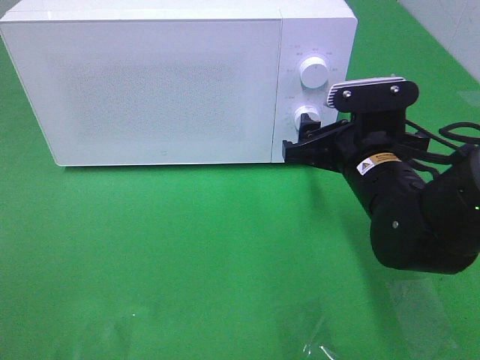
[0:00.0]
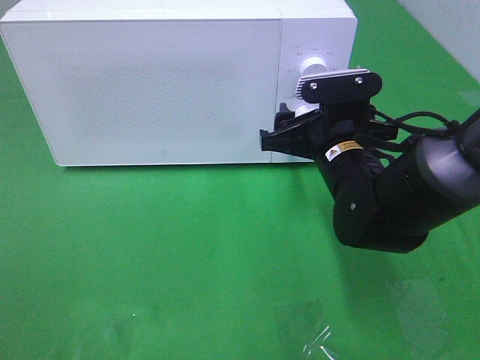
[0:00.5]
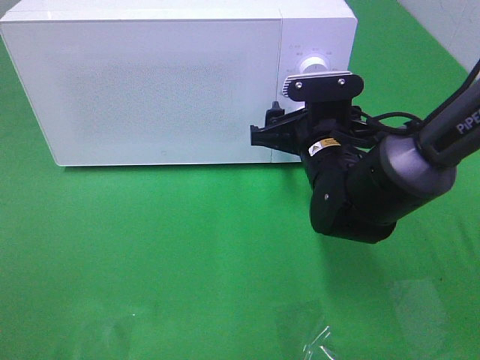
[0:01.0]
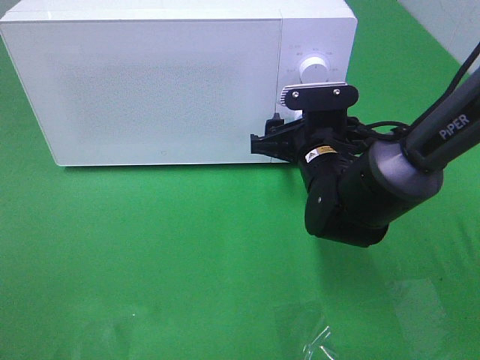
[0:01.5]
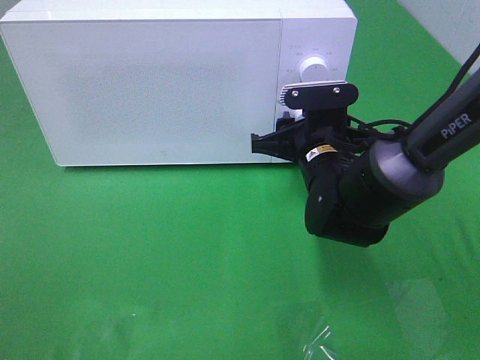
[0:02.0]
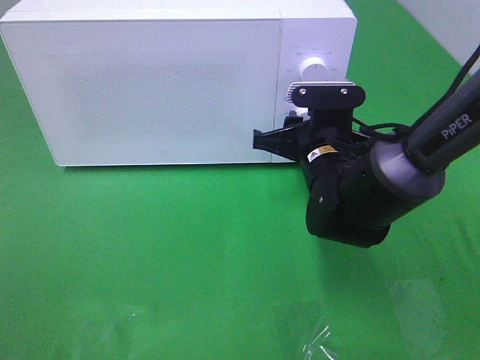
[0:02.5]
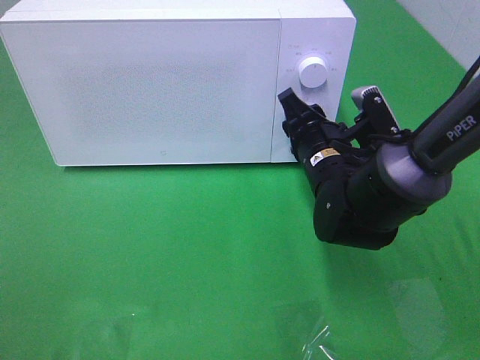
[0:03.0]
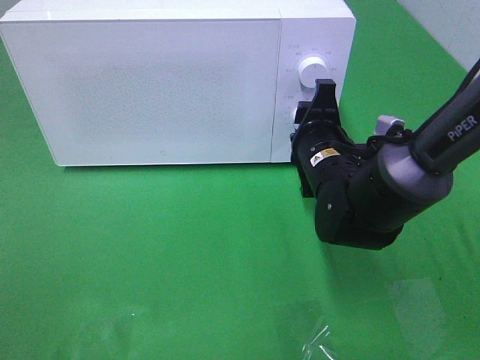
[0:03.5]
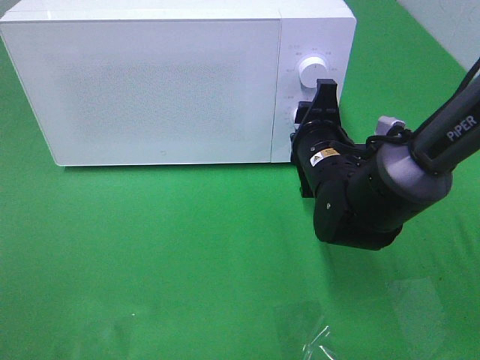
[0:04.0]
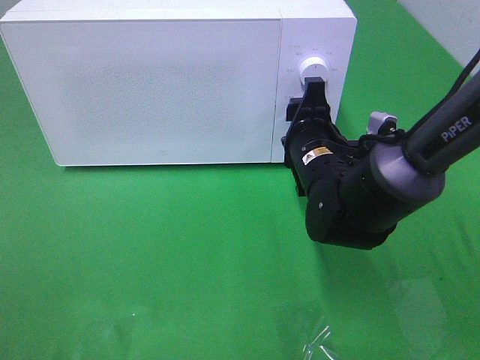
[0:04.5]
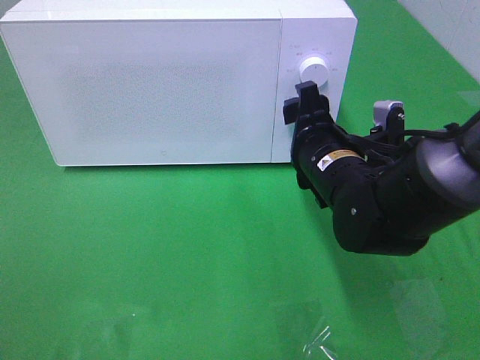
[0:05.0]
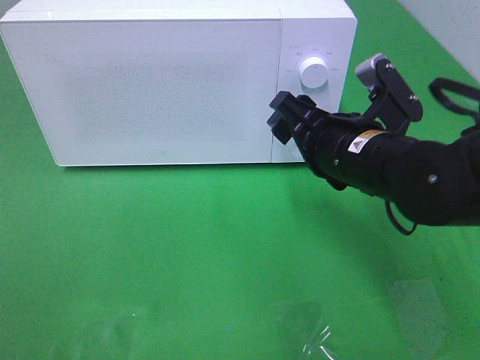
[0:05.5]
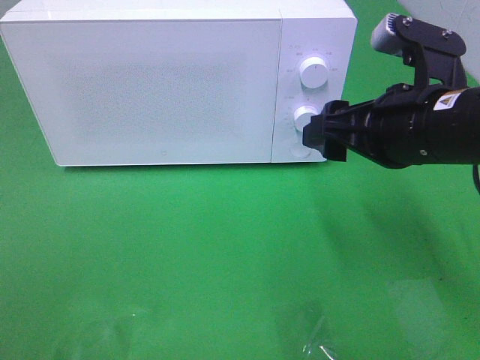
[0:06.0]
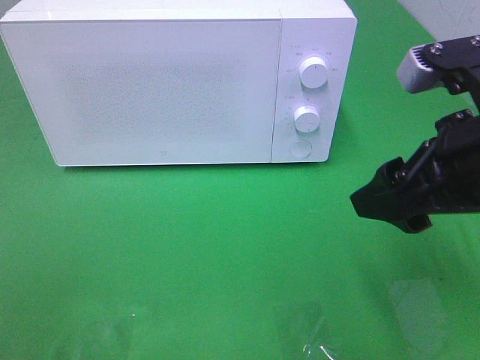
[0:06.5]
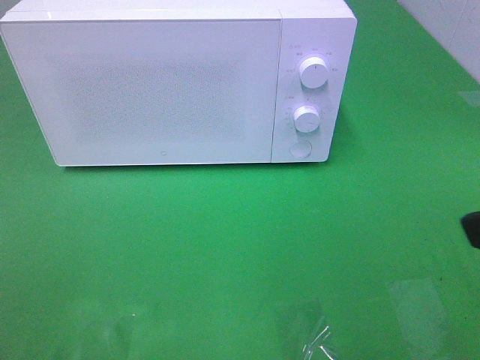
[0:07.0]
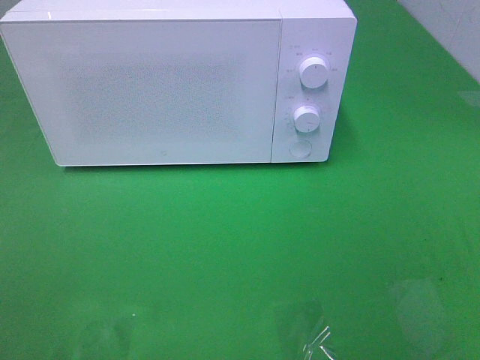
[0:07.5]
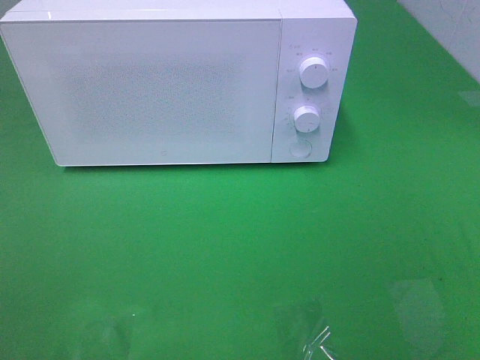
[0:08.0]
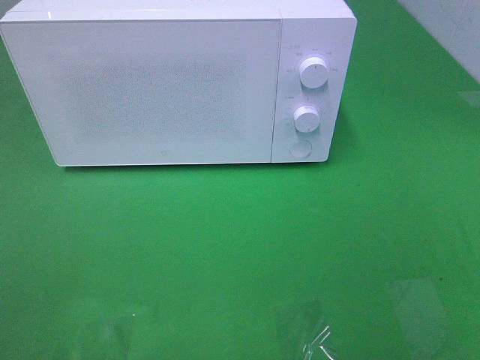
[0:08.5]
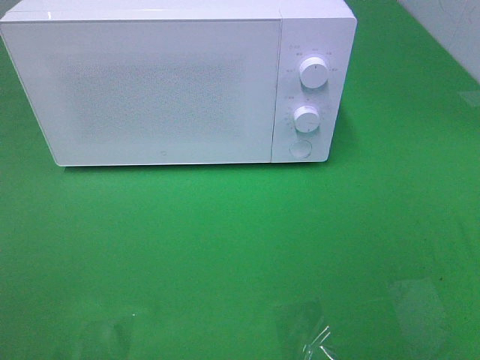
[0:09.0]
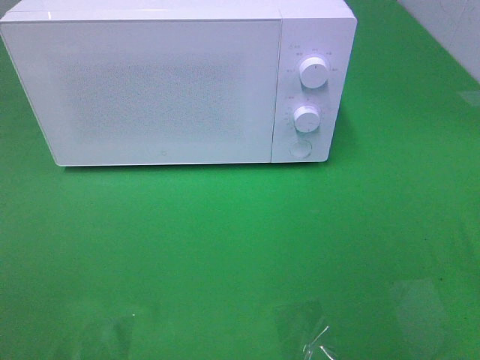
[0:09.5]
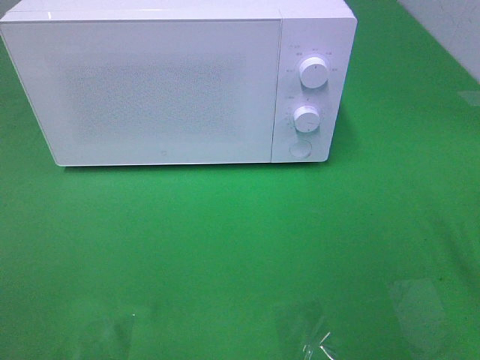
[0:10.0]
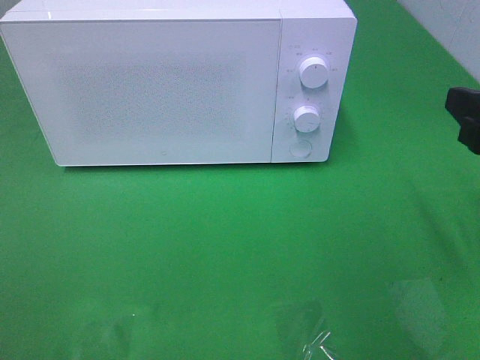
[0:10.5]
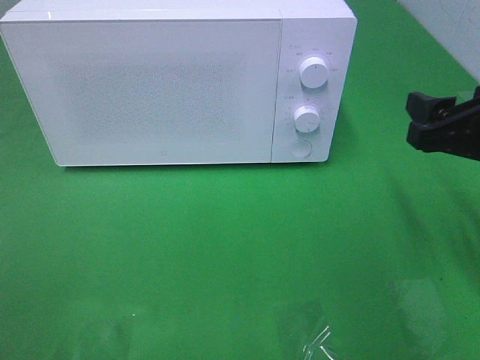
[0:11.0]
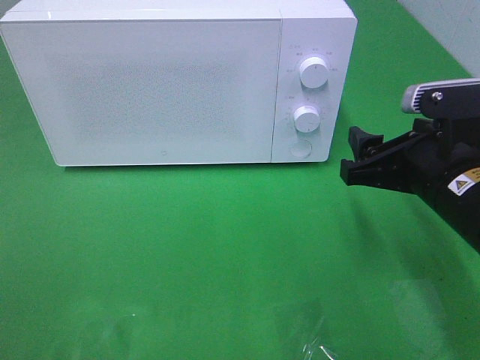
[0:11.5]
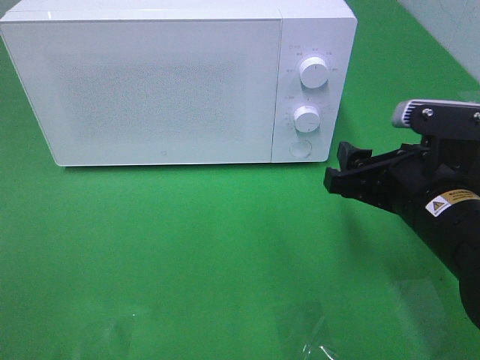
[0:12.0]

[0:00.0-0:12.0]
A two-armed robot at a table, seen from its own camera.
Task of the whole recording: Heat the burger.
Step, 0:00.0 to 0:05.0: Right hand: twist timer button.
0:00.0 to 0:02.0: The right gripper shifts by approximately 5 cm.
0:04.0 to 0:06.0: The right gripper shifts roughly 15 cm upward, backward and to the right, and opens.
0:06.0 to 0:08.0: The right gripper goes some 25 cm backward and to the right.
0:10.0 to 0:12.0: The right gripper shifts about 15 cm downward, to the left and forward.

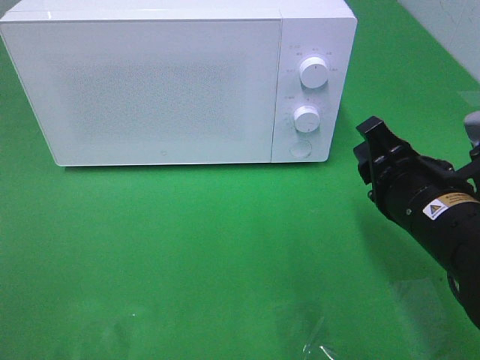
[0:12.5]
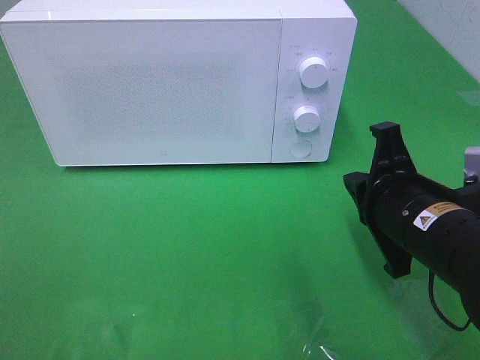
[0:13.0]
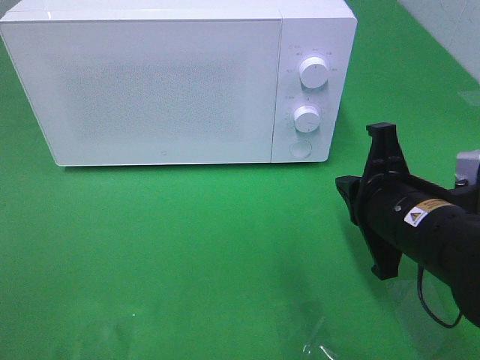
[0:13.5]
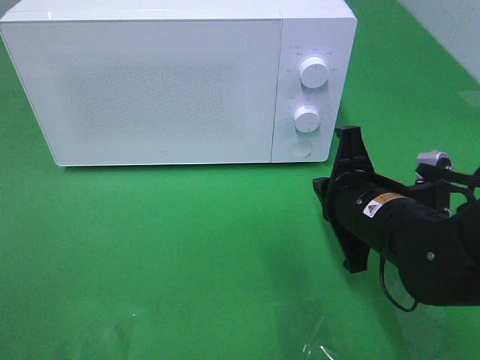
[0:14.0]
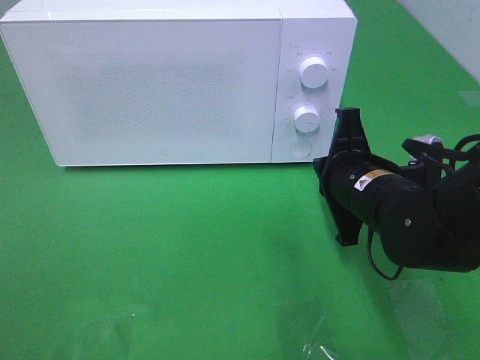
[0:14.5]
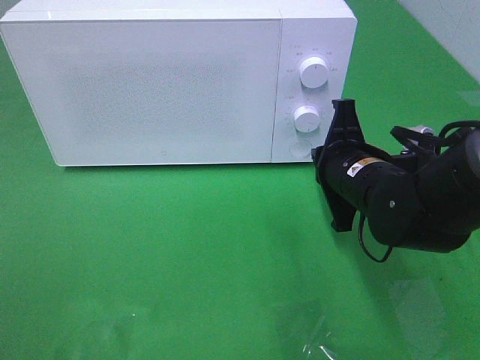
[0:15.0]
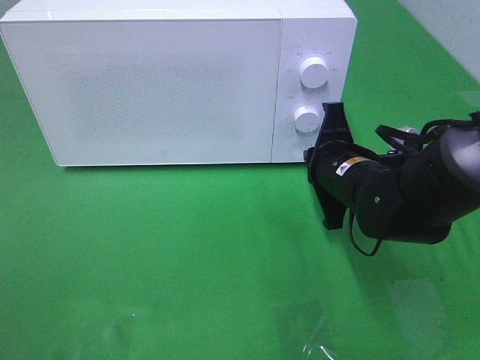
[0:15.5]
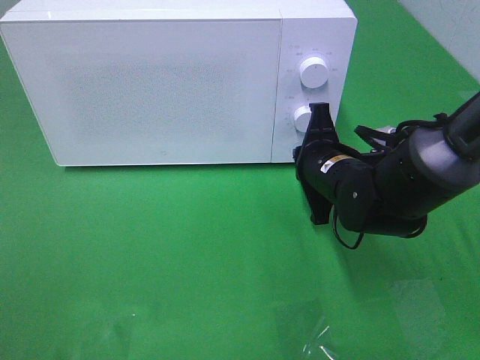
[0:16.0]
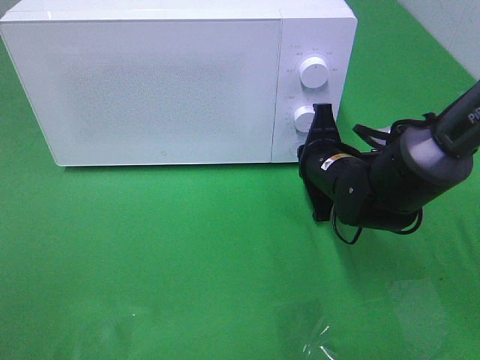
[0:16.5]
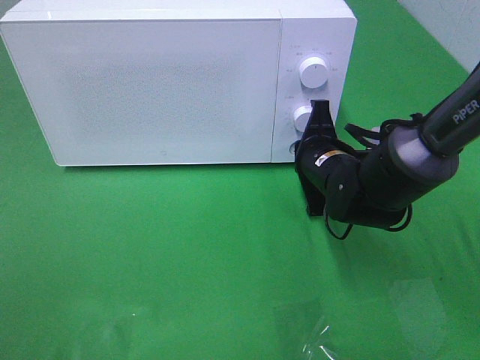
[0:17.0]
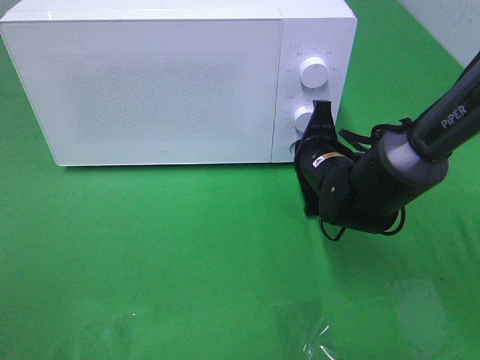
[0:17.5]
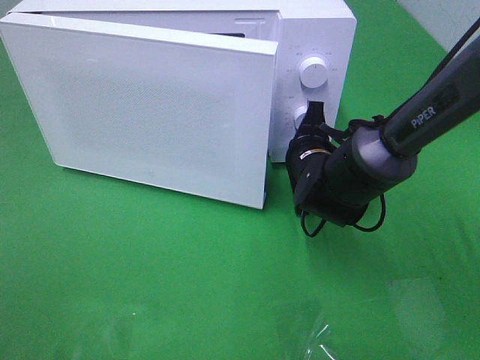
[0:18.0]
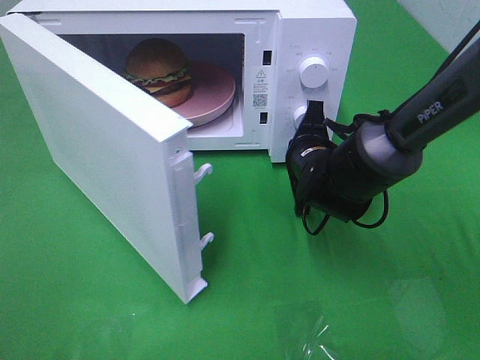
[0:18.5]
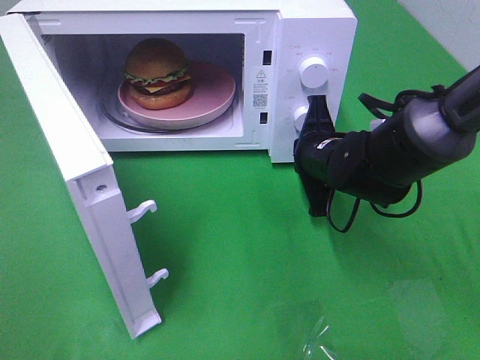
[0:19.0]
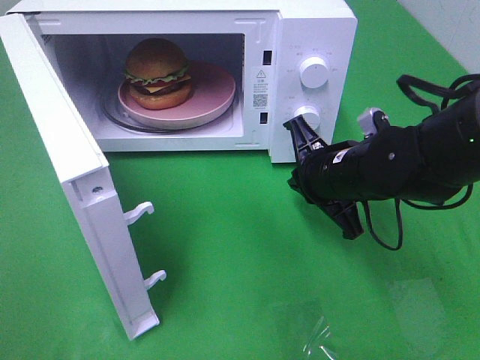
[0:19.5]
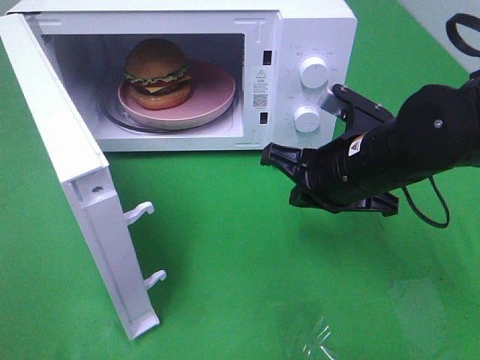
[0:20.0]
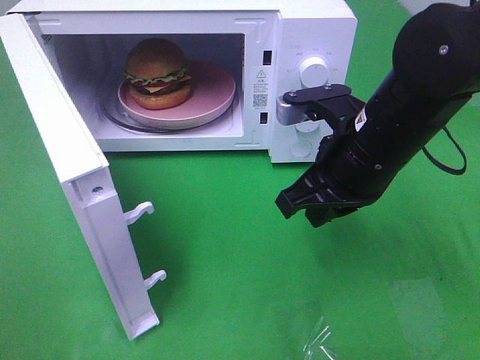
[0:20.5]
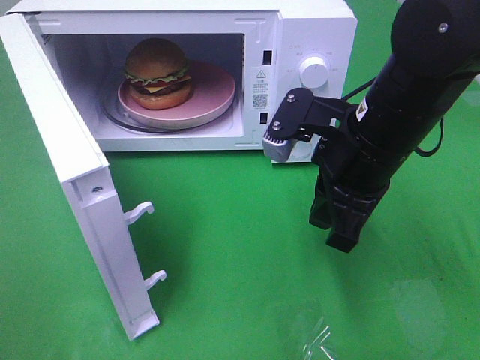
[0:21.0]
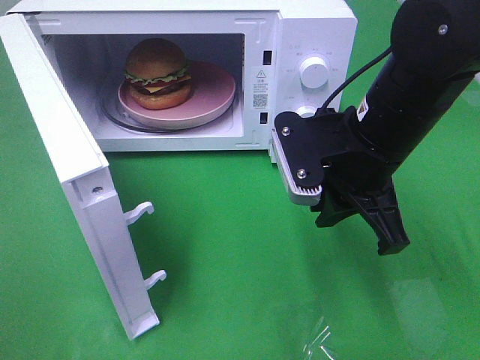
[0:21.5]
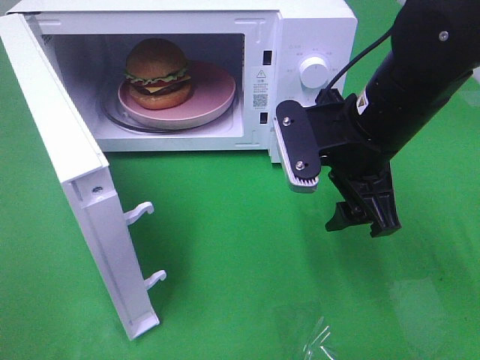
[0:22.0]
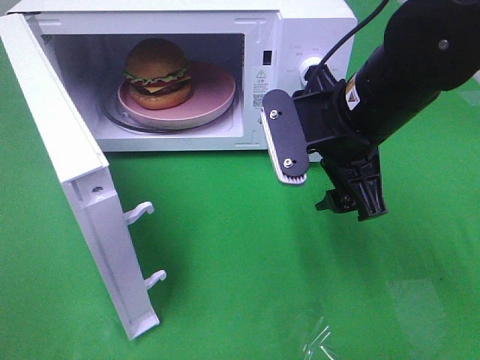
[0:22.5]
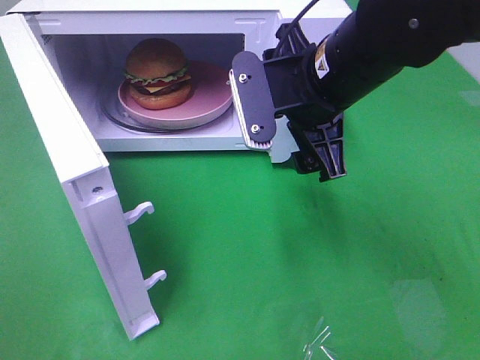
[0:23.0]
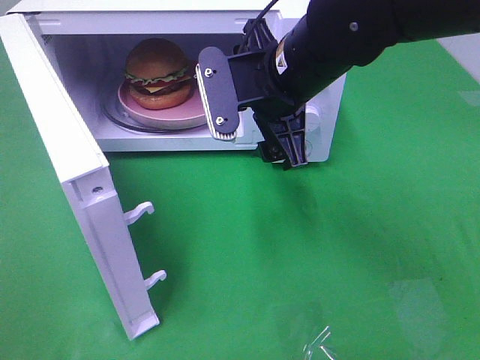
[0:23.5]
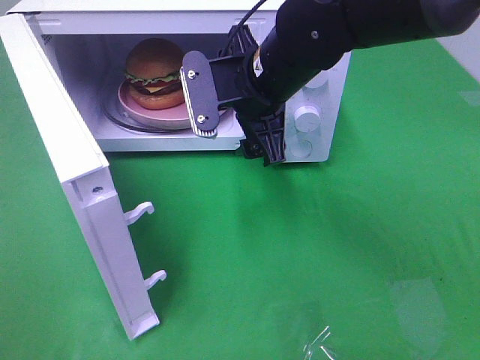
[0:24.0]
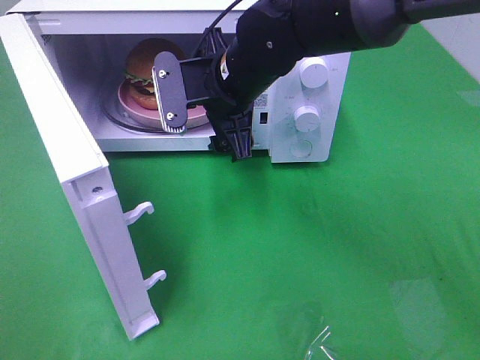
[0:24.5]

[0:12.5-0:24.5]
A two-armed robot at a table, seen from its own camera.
Task of the whole recording: Heat the burger.
Step, 0:12.5 to 0:19.0: Right hand: press the switch.
0:12.5 to 0:14.5: The right gripper moves forward, about 5 cm, and closes.
0:14.5 to 0:16.5: The right gripper moves forward, about 5 cm.
0:18.5 to 0:20.5: The right gripper moves upward and backward, approximately 15 cm.
0:20.5 to 0:22.5: The right gripper opens up.
0:22.5 to 0:24.5: The right gripper shifts approximately 15 cm to the left and forward.

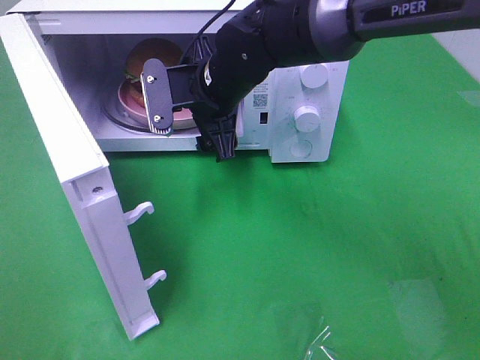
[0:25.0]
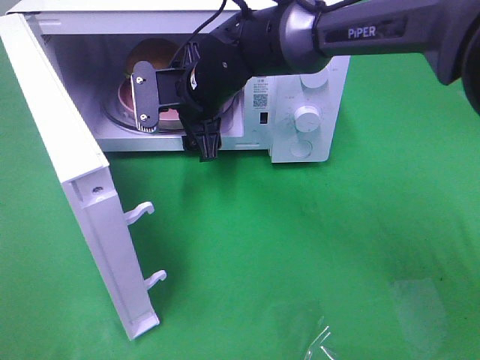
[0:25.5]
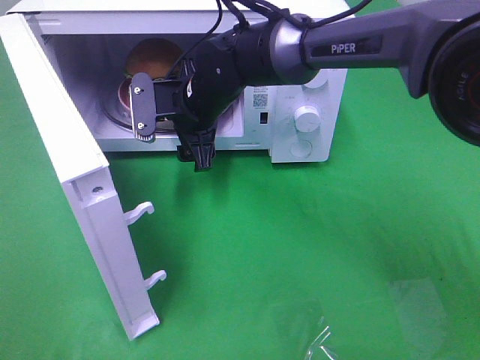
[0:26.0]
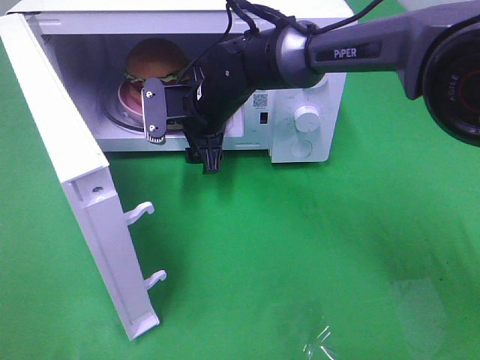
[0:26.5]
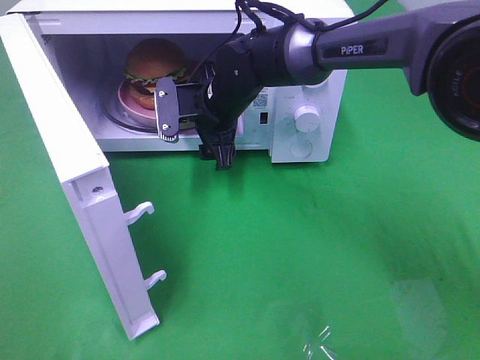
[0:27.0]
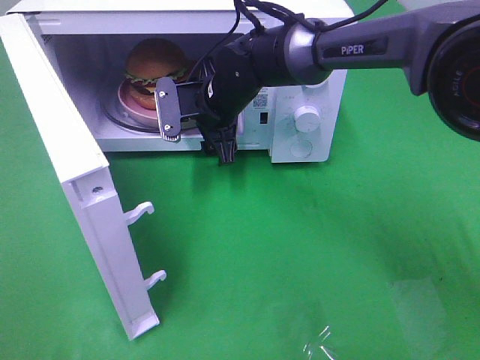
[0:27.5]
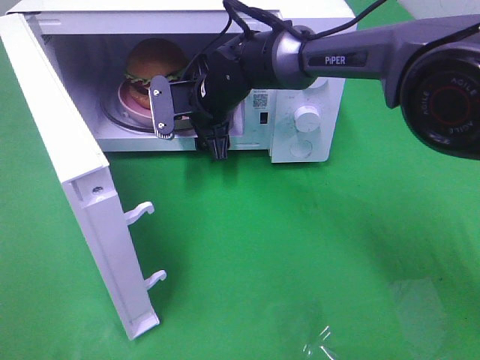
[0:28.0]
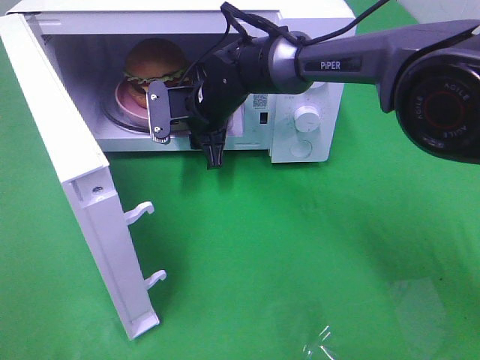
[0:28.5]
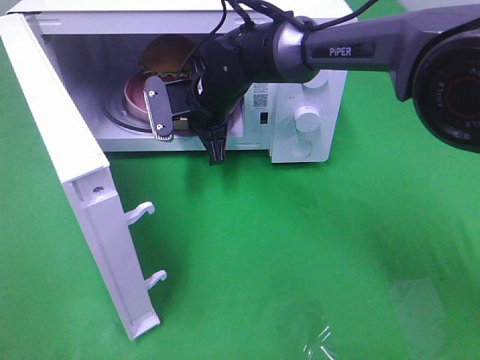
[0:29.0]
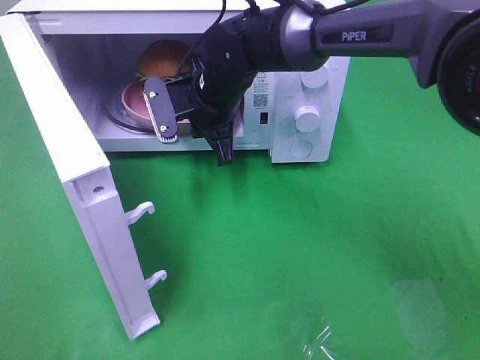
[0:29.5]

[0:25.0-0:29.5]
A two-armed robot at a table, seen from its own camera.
Task of the whole recording: Heat the burger.
Step, 0:25.0 to 0:29.0: Right hand: grab the plate with the hamburger.
0:25.0 to 0:27.0: The right gripper moves roughly 5 cm.
0:27.0 to 0:29.5: The right gripper closes its fingers.
